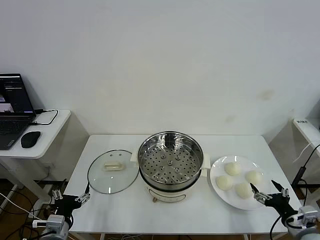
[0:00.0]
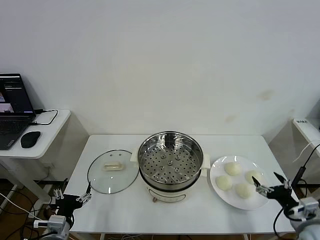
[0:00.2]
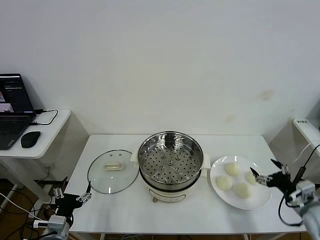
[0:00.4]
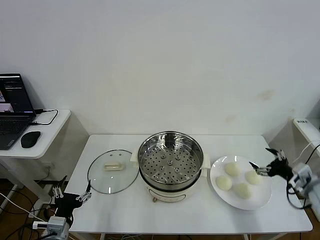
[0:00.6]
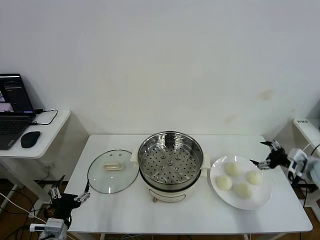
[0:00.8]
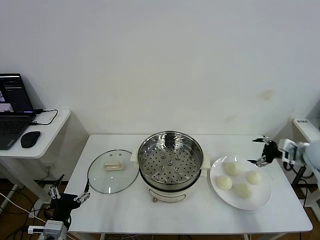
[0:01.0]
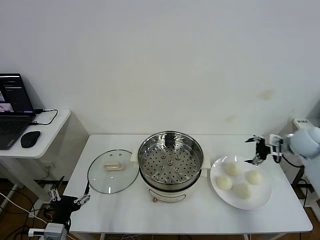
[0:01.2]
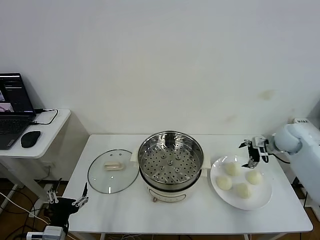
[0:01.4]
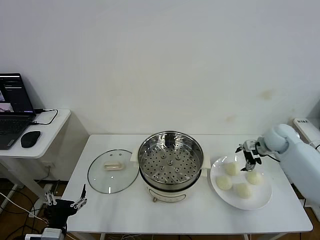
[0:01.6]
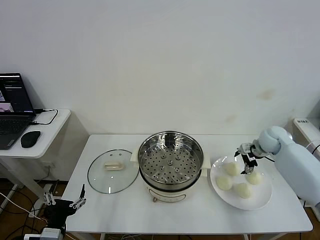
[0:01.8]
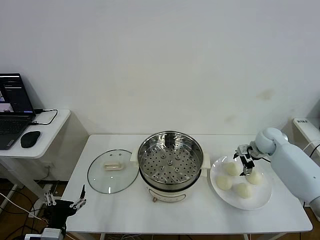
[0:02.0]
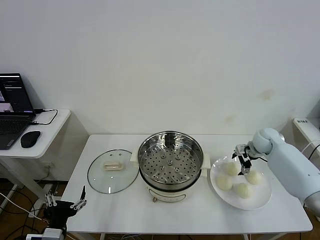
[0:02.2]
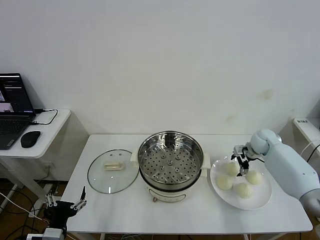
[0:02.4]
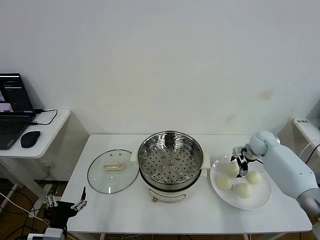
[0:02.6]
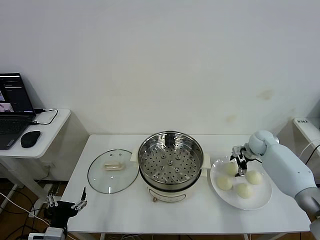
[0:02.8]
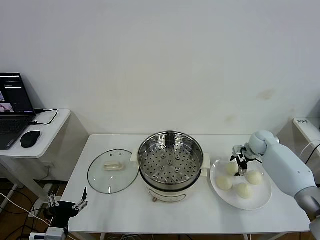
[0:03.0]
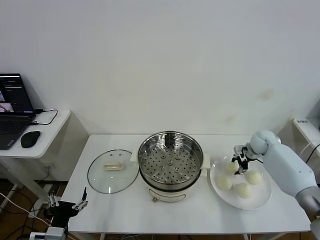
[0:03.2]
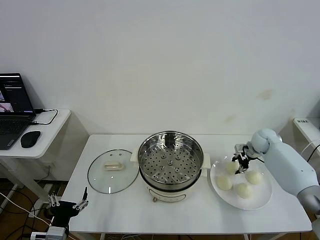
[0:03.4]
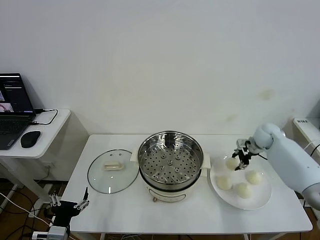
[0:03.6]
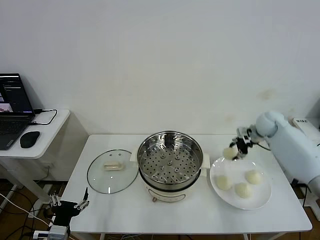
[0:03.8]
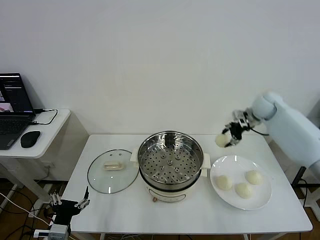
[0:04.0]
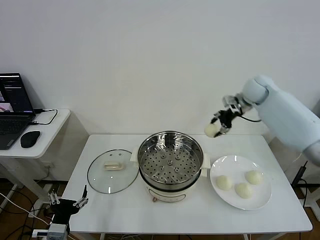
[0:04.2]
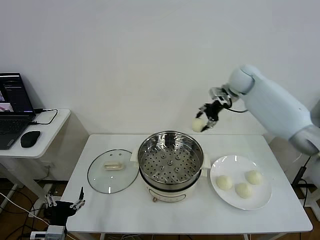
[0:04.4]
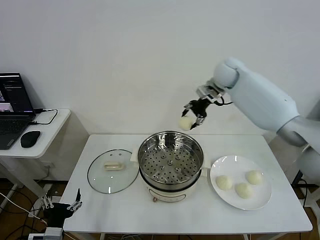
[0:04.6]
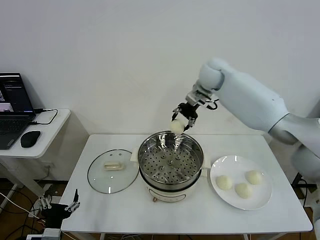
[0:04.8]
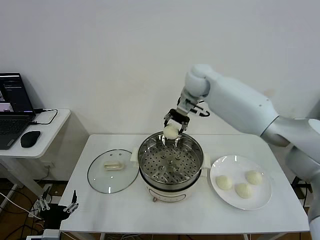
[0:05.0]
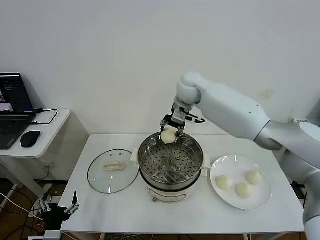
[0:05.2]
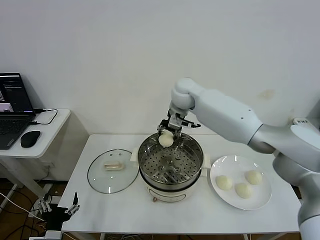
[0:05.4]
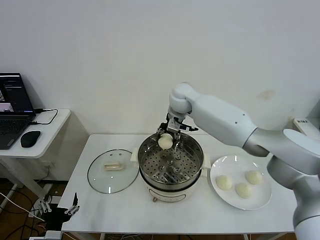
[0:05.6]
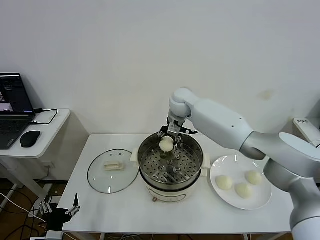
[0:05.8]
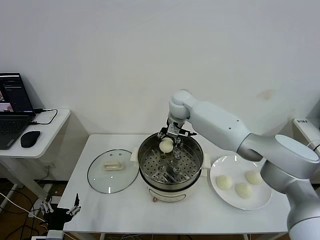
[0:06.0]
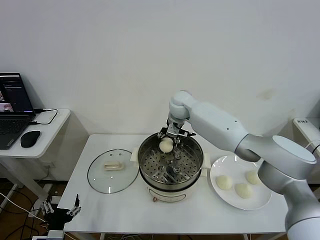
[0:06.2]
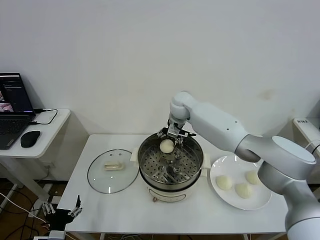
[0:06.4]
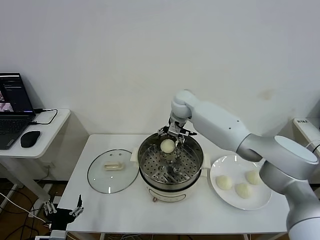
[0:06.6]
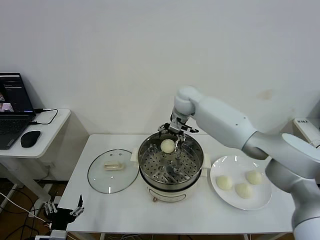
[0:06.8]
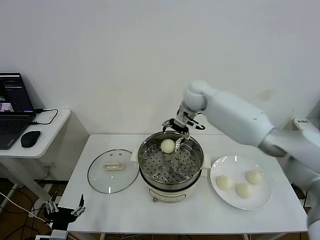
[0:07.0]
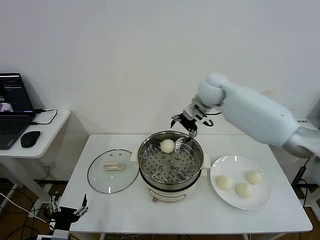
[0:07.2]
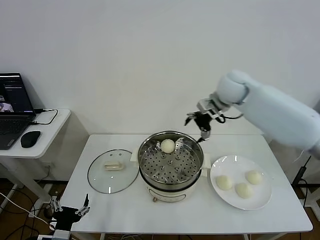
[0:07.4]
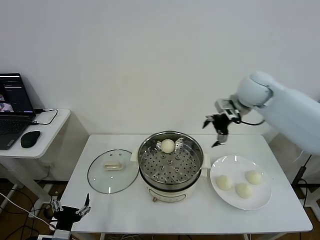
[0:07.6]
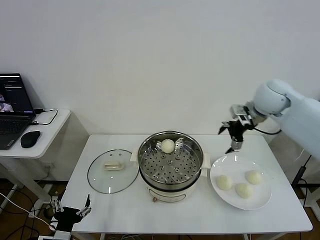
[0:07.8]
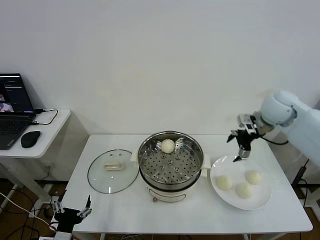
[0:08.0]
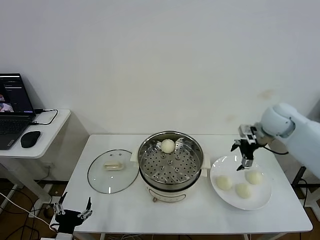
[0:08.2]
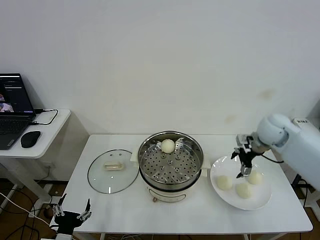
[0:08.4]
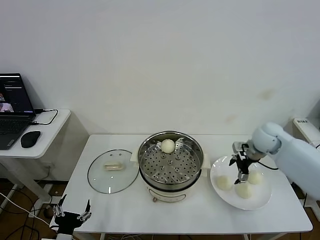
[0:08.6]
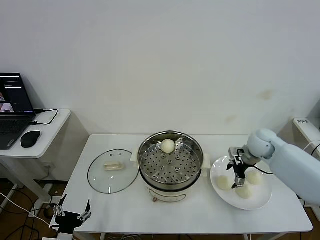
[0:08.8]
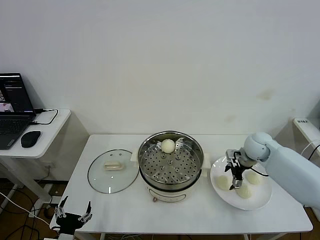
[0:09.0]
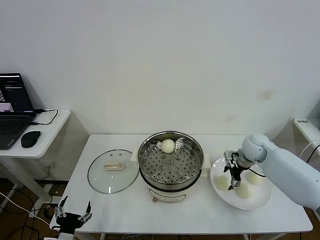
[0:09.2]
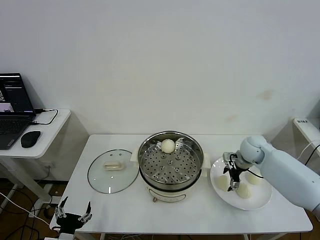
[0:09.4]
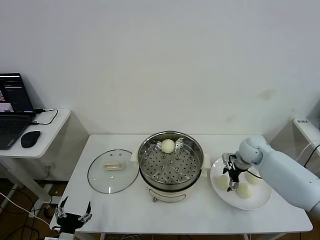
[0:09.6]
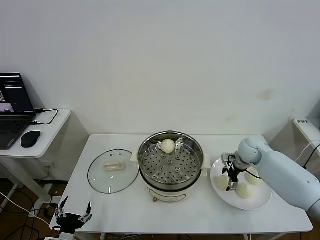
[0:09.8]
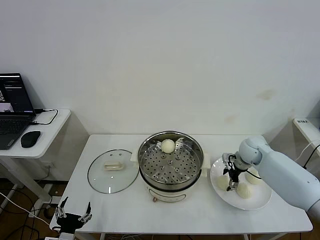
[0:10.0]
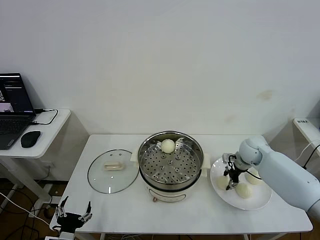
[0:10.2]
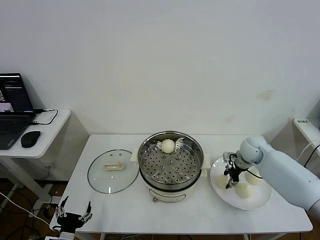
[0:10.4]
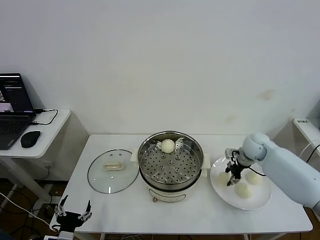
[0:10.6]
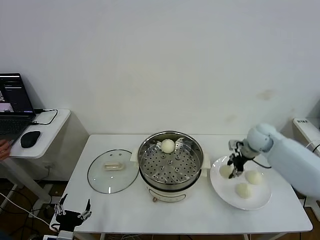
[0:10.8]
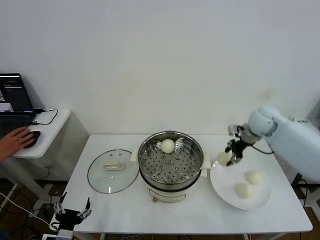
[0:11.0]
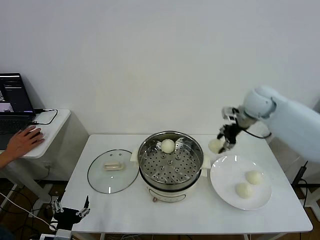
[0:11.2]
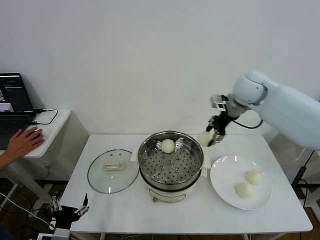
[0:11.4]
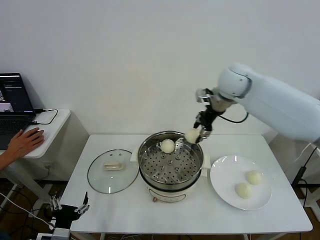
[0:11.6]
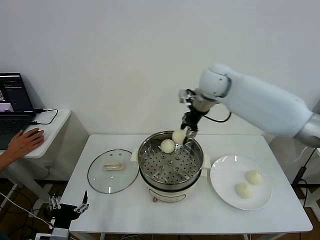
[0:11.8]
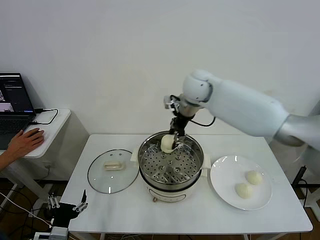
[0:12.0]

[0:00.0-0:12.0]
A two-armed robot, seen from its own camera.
Step, 0:00.0 to 0:03.0: Grasp the baozi in the plate with right gripper.
Step, 0:03.2 to 0:06.4: Place the baozi on the steamer with right gripper.
Step, 0:06.6 to 0:10.2: Grasp the baozi in the plate with right gripper.
0:01.6 to 0:03.0: The right gripper travels downward by approximately 5 cm.
0:03.0 to 0:04.4: The right gripper moves upward and to the left, roughly 30 cm, and closes up.
0:04.4 to 0:06.0: The right gripper goes about 20 cm to the left and downward.
0:06.0 to 0:07.6: The right gripper is displaced to the right and upward by roughly 25 cm, and opens.
0:07.6 to 0:09.0: The right gripper moves downward, about 20 cm.
0:09.0 to 0:10.4: The right gripper closes.
0:10.4 to 0:12.0: The right gripper goes some 35 cm to the left and upward.

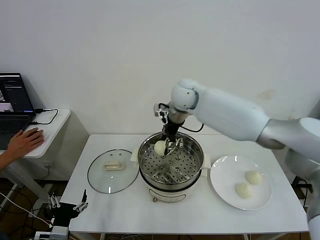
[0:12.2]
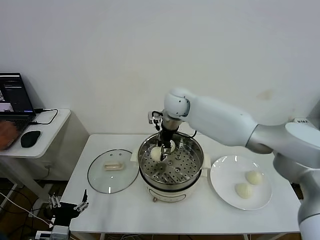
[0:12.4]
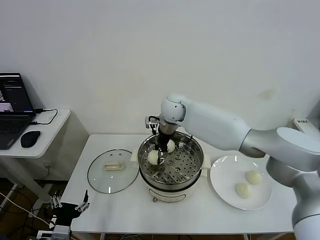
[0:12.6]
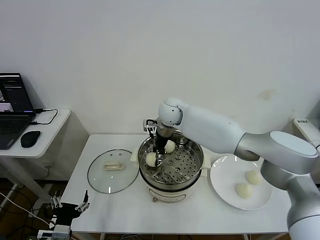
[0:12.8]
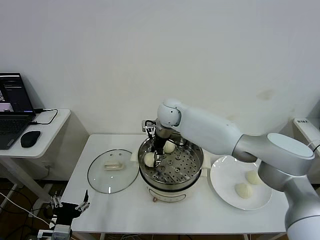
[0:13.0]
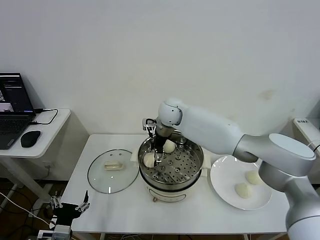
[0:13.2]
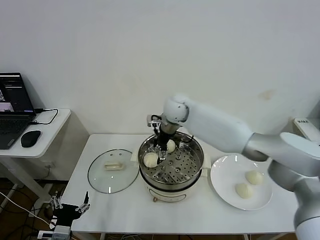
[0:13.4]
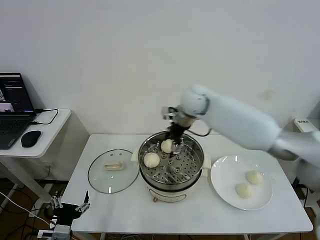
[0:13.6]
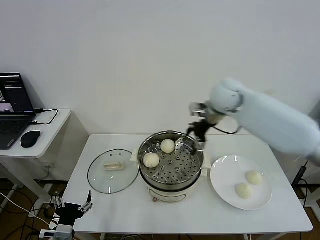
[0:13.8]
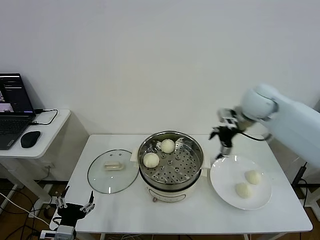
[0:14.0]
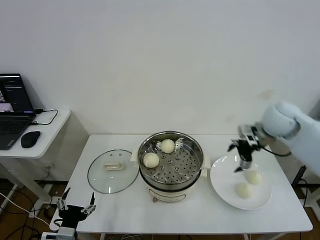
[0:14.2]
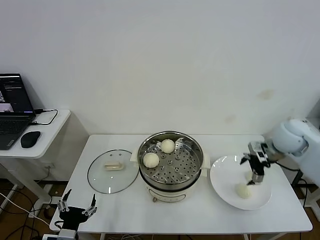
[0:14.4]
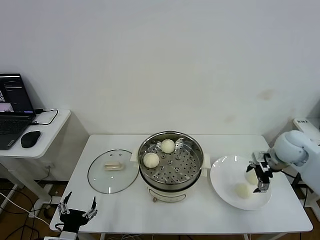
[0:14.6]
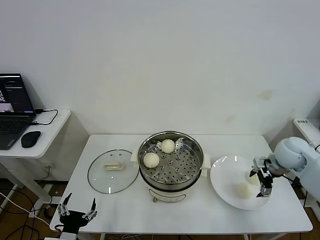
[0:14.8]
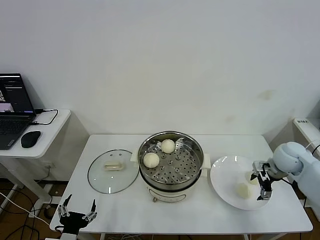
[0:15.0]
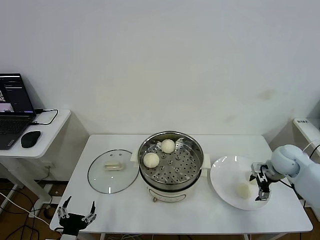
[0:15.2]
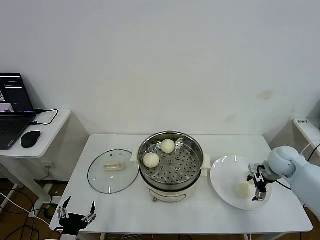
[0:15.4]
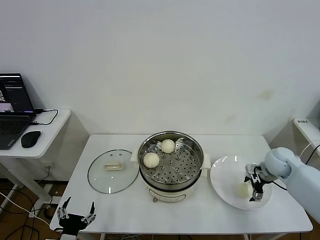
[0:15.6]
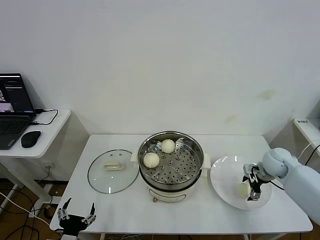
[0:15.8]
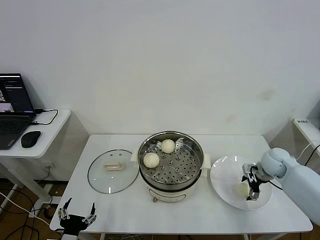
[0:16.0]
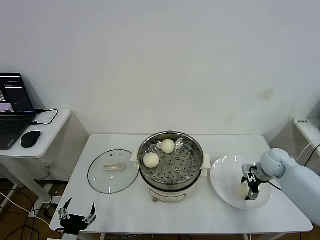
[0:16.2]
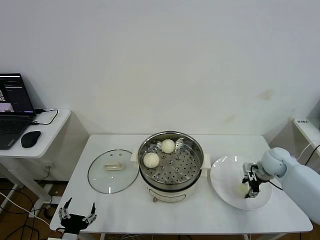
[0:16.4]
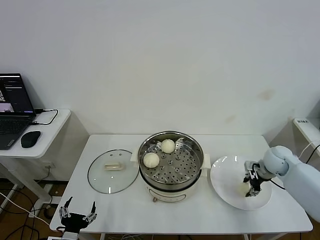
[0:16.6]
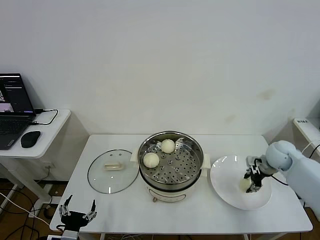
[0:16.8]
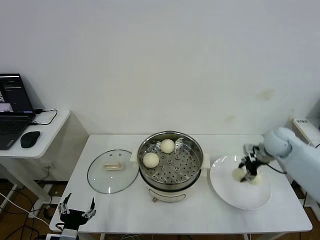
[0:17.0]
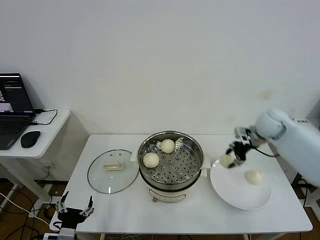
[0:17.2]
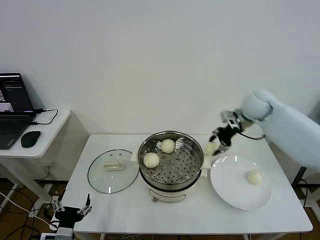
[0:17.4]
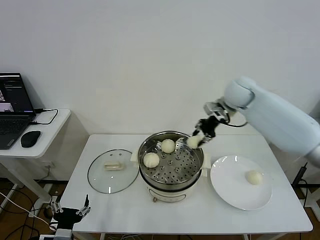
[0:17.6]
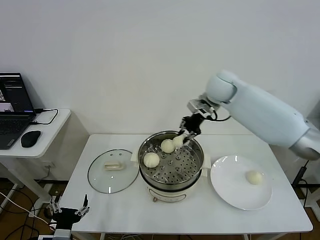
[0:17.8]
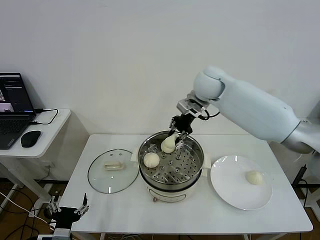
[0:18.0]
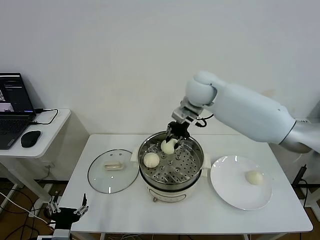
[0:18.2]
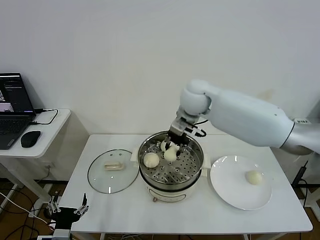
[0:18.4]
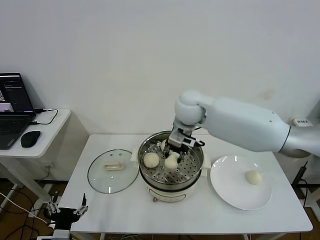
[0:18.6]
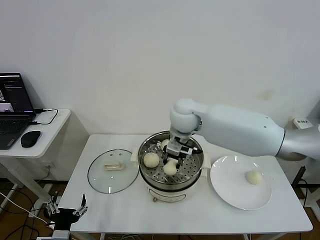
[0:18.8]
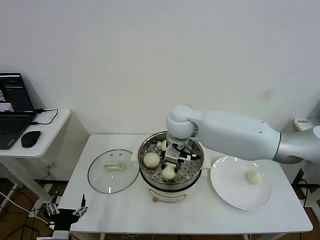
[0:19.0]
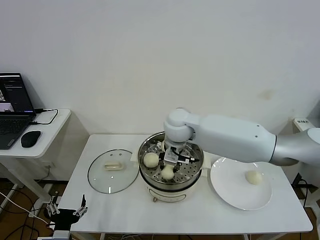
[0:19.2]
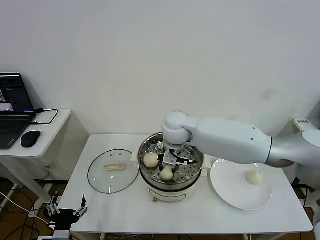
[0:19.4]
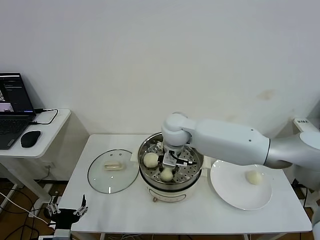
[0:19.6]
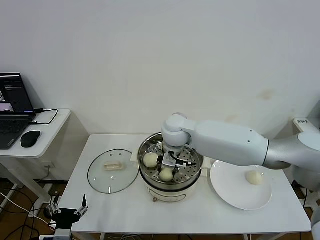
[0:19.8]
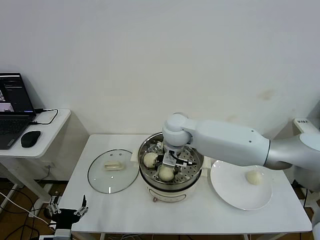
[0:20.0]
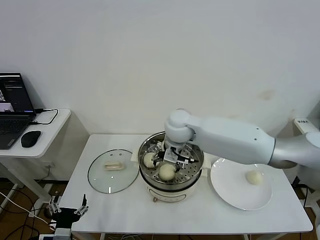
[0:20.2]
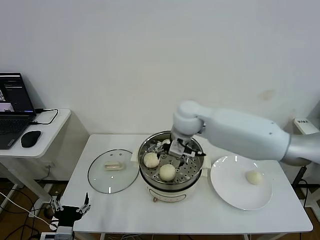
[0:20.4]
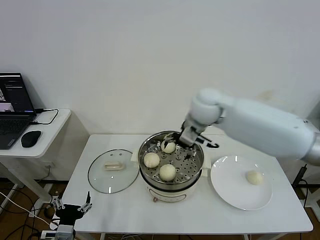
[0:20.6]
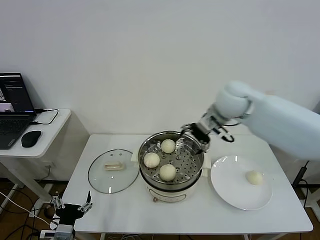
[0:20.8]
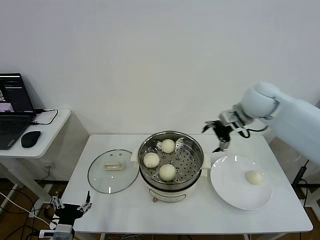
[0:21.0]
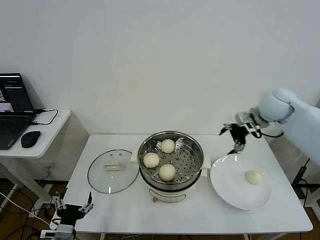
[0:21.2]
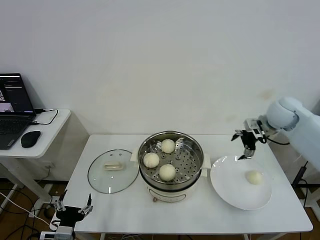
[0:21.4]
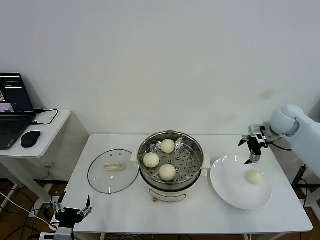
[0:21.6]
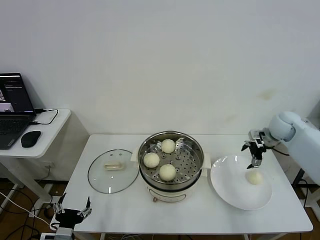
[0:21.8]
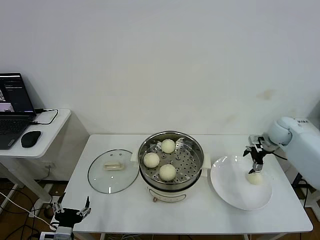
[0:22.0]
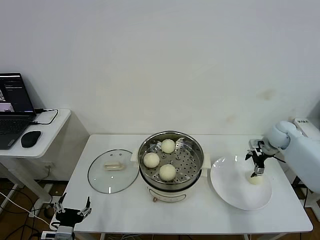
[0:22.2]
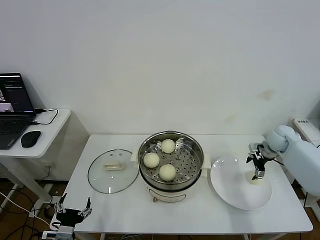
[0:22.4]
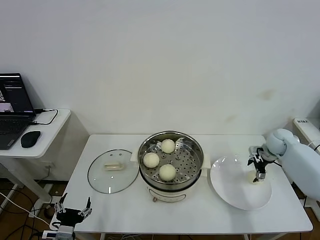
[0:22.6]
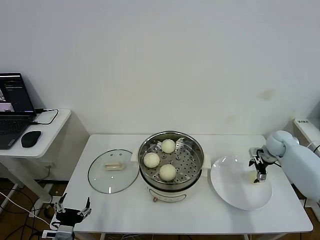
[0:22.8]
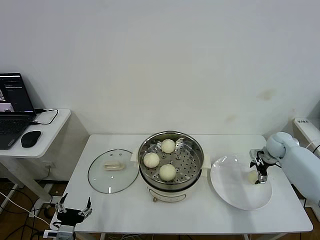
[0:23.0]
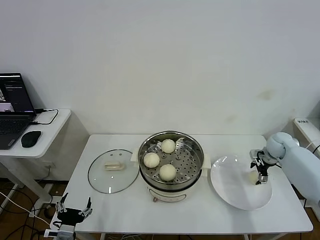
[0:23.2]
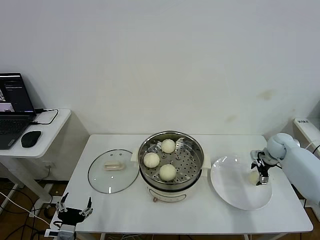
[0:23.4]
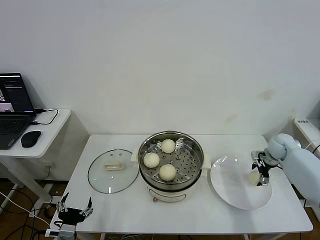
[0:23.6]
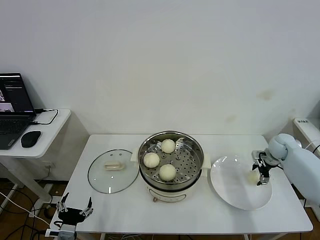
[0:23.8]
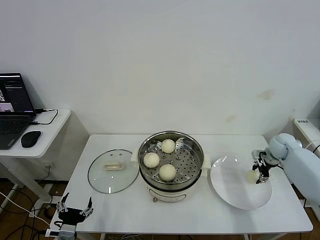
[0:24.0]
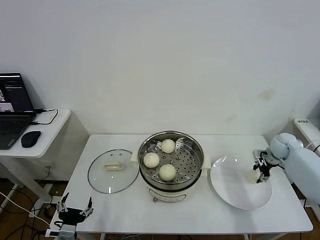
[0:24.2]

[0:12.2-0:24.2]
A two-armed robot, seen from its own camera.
Step, 0:13.2 to 0:16.2: Grasp the baozi in the plate with right gripper.
Step, 0:16.4 to 0:20.0: Place the baozi on the steamer with right gripper.
Step, 0:20.2 to 0:23.8: Grasp the baozi in the plate with right gripper.
0:12.2 to 0:13.8: The right gripper heads to the right, covering approximately 15 cm, and opens.
0:13.8 to 0:15.2: The right gripper travels to the right, downward and backward by approximately 30 cm.
0:15.2 to 0:16.6: The right gripper closes up.
0:16.6 to 0:18.2: The right gripper goes some 40 cm to the left and upward, and closes its fingers.
0:18.2 to 0:19.8: The right gripper moves downward, to the left and backward, roughly 15 cm.
0:19.8 to 0:21.2: The right gripper is displaced to the right by approximately 30 cm, and opens.
0:21.2 to 0:22.6: The right gripper heads downward and to the right, covering about 20 cm.
0:22.6 to 0:24.2: The right gripper closes.
